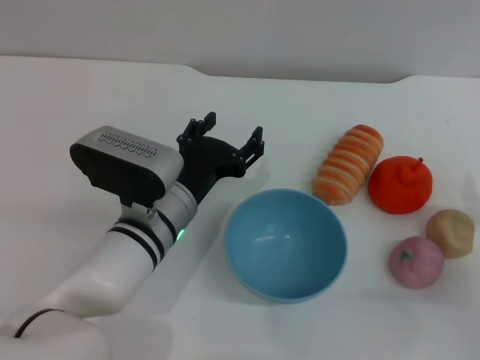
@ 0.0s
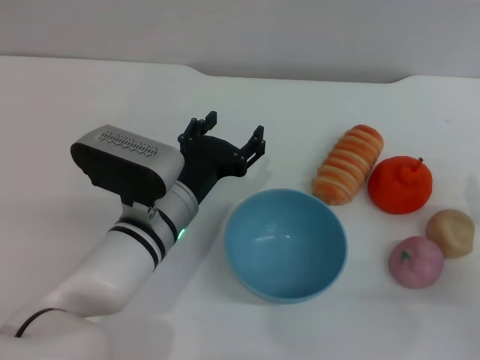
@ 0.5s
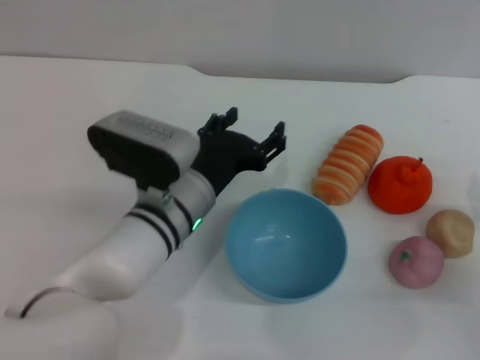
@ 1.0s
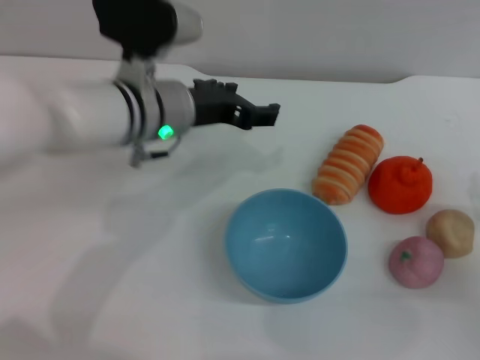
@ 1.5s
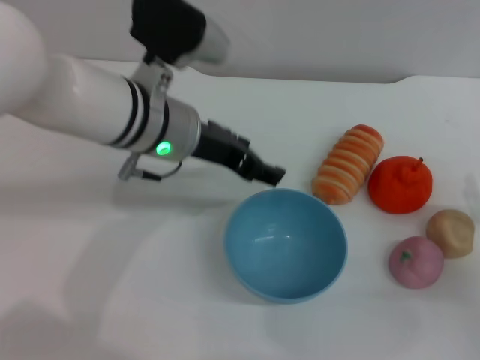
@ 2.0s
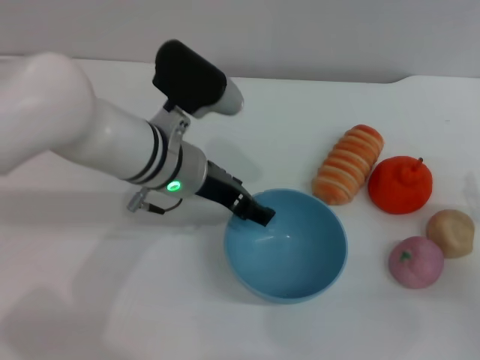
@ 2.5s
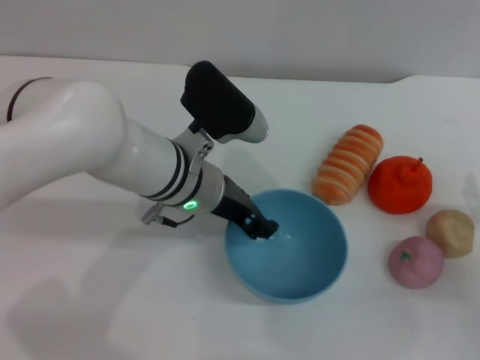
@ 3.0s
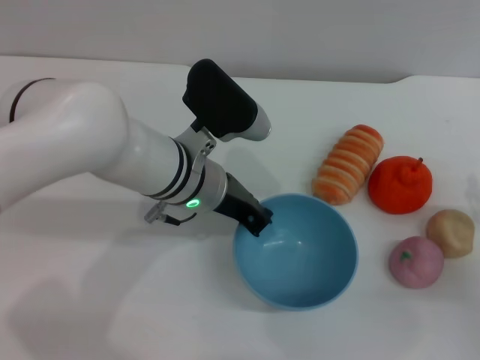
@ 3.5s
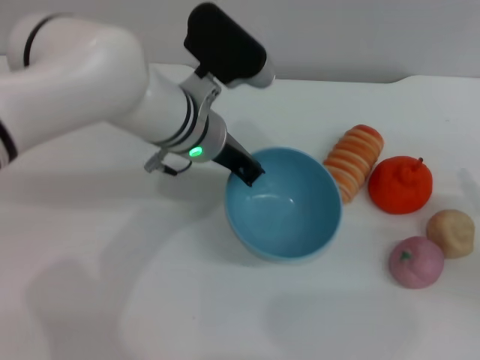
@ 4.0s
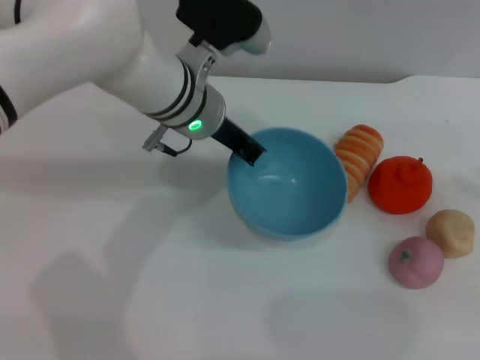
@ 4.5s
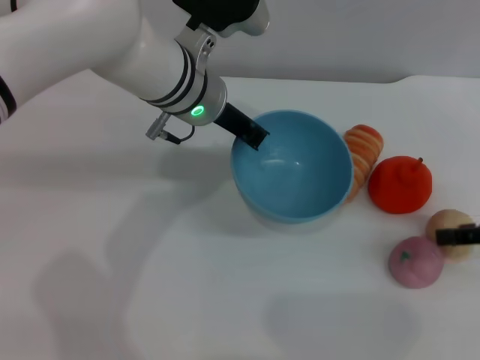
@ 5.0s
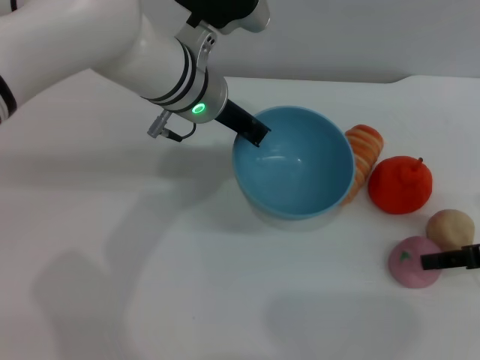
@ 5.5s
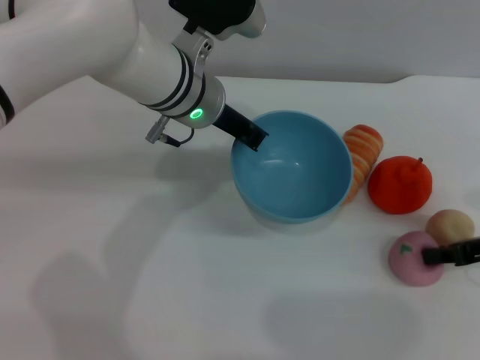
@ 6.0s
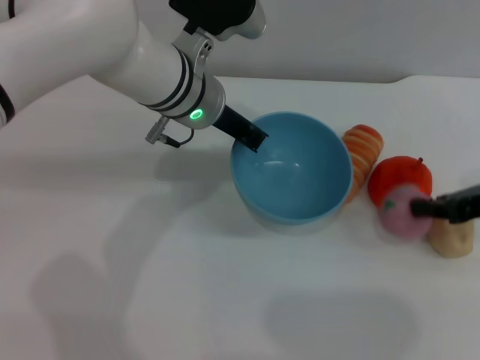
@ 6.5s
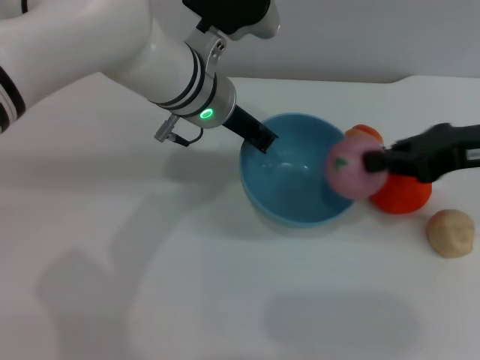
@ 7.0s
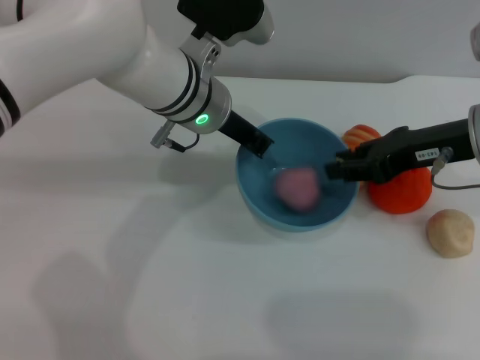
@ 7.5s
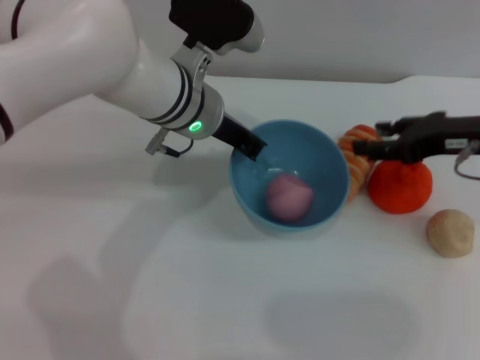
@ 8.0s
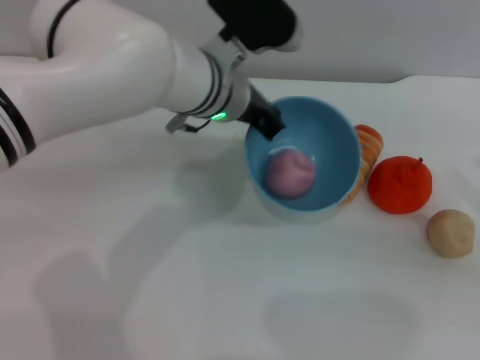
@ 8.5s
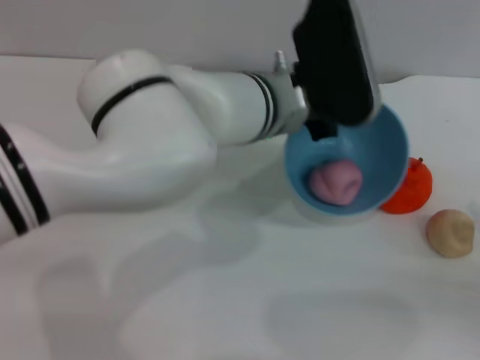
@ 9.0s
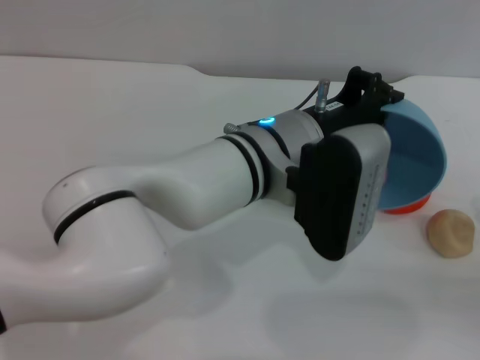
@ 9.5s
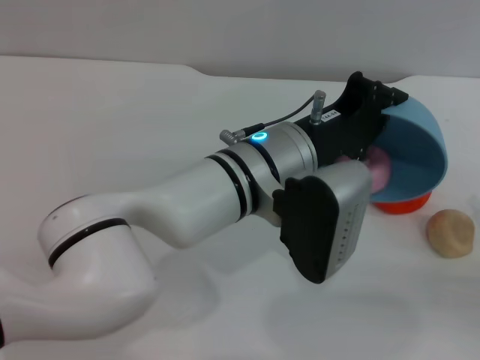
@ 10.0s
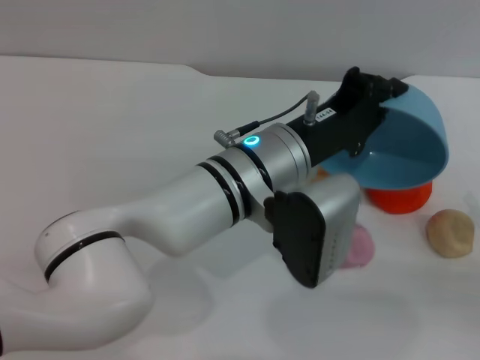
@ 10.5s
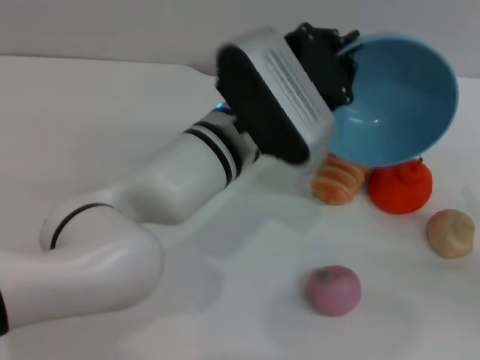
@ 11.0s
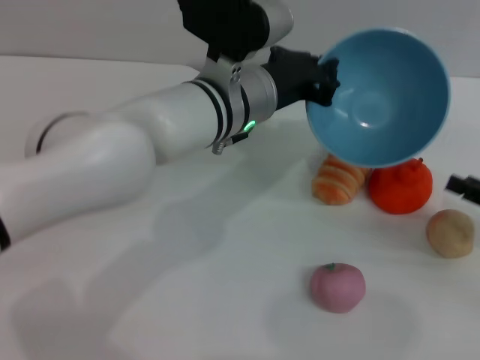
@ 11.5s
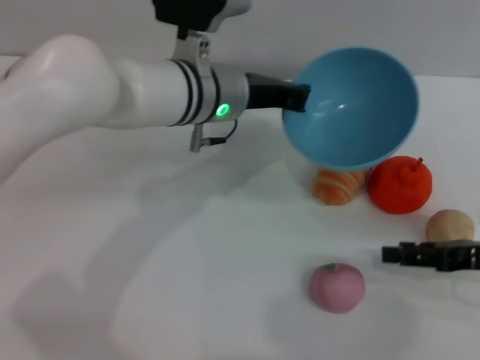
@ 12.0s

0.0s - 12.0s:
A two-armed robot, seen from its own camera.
Task of the whole recording: put the peach into the blue bowl and pour it out repeatedly.
Step, 0.0s - 5.0s: Pick up the bowl with the left gripper.
Step, 5.5s - 6.5s: Pick up the peach with the right gripper.
Step, 7.0s - 7.5s: Place the peach into the bowl.
Step, 8.0s - 10.5s: Pour the peach out of bowl.
0.0s - 2.0s: The left gripper travels upward and forward by approximately 15 cm.
2.0s - 4.0s: The left gripper closes.
4.0s - 6.0s: The right gripper travels upward by about 5 cm.
6.0s - 8.0s: The right gripper shifts some 10 cm upward and to the left, and opens its fingers.
8.0s - 10.0s: The left gripper travels backward and to the right by approximately 10 cm. Meanwhile the right gripper travels backward, downward and to the right by about 20 cm.
10.0s - 12.0s: The left gripper moves forward and to the left, about 10 cm; the right gripper goes approximately 10 cm to the left and forward.

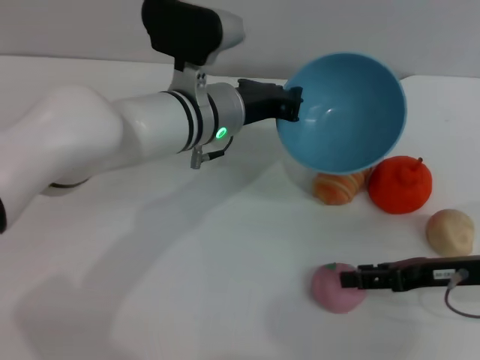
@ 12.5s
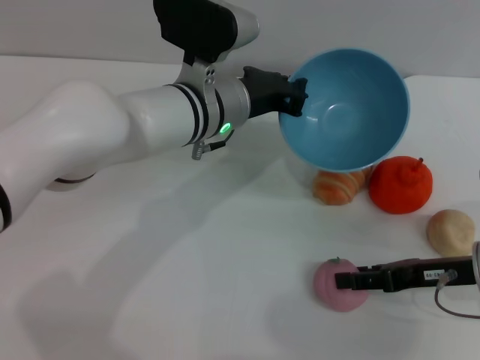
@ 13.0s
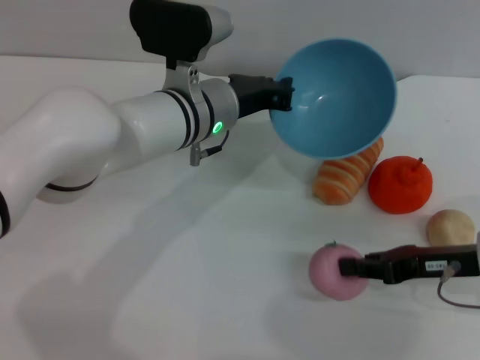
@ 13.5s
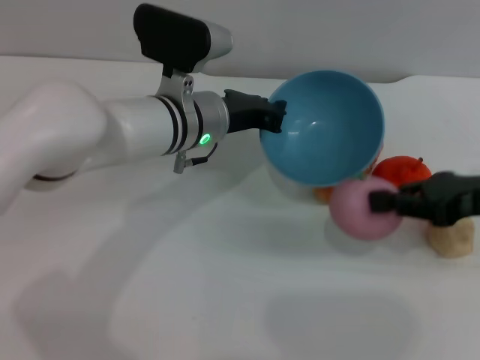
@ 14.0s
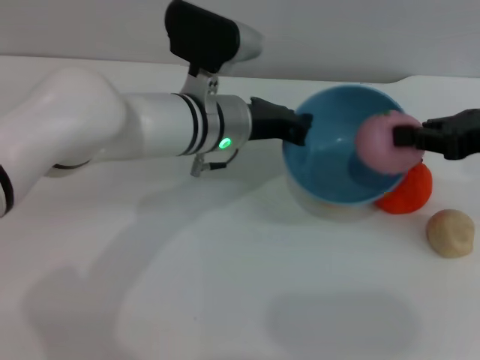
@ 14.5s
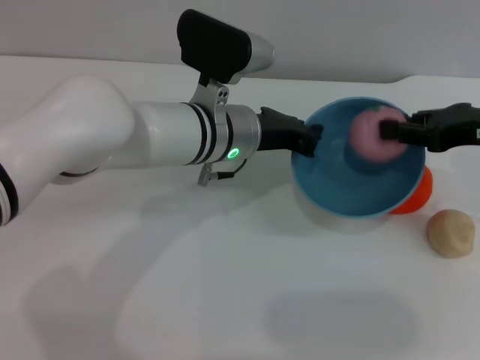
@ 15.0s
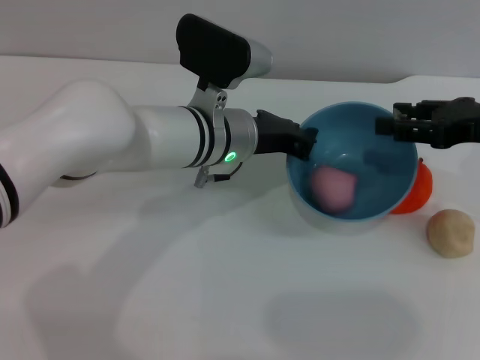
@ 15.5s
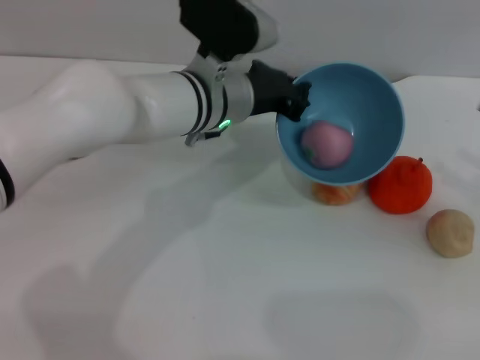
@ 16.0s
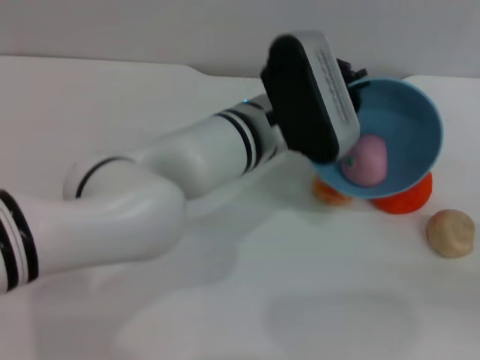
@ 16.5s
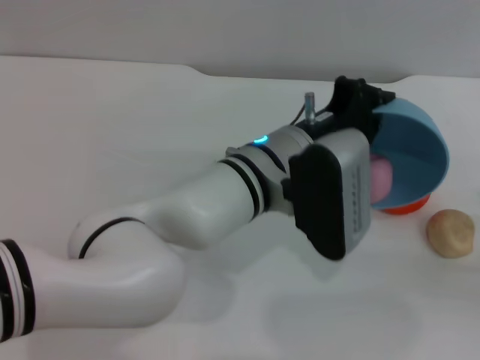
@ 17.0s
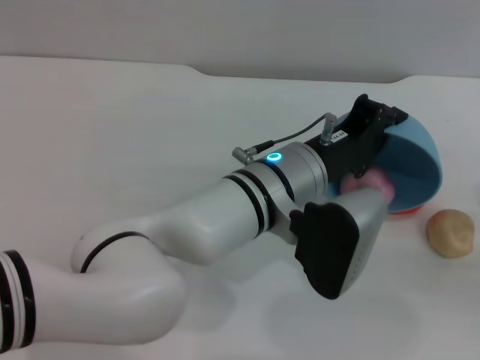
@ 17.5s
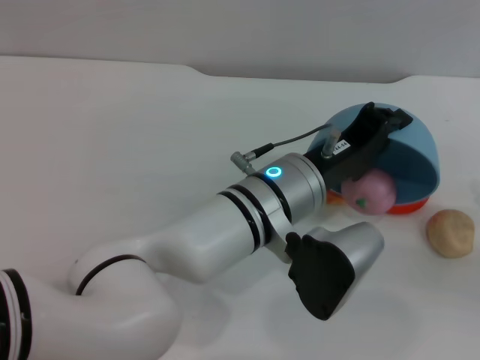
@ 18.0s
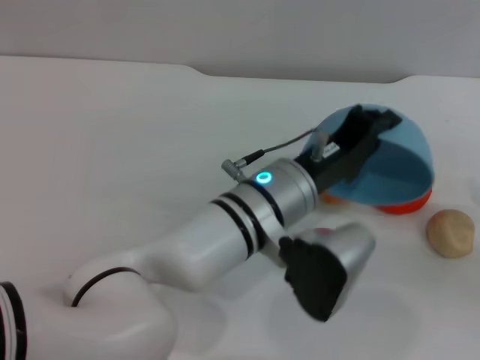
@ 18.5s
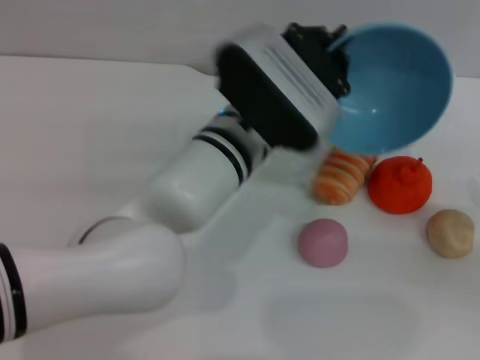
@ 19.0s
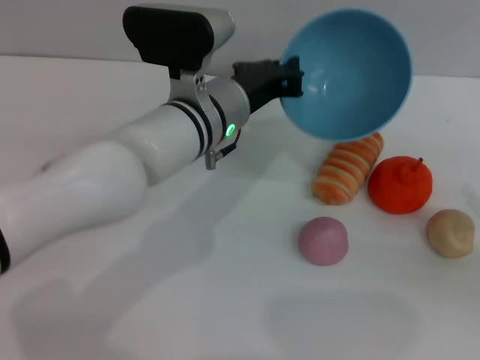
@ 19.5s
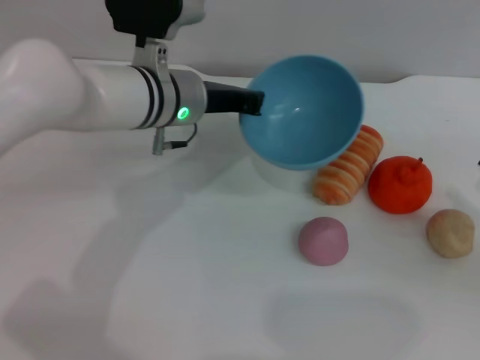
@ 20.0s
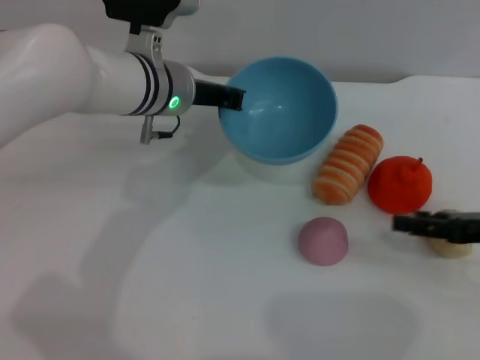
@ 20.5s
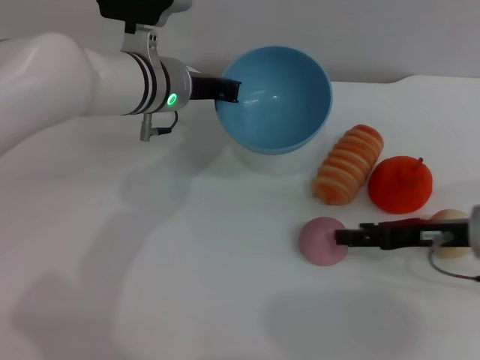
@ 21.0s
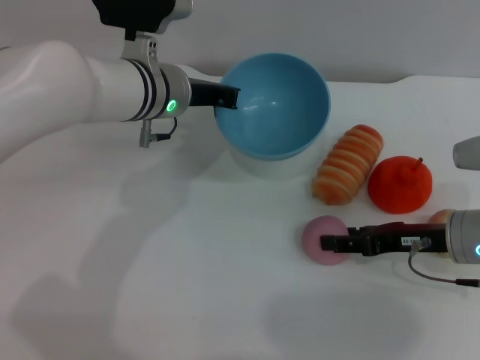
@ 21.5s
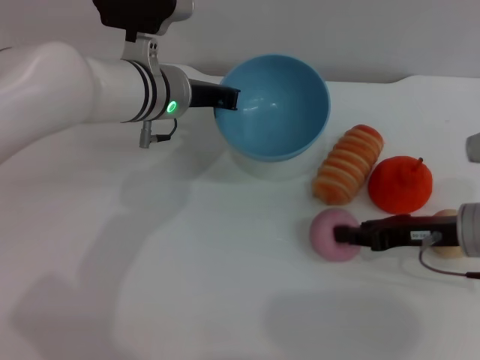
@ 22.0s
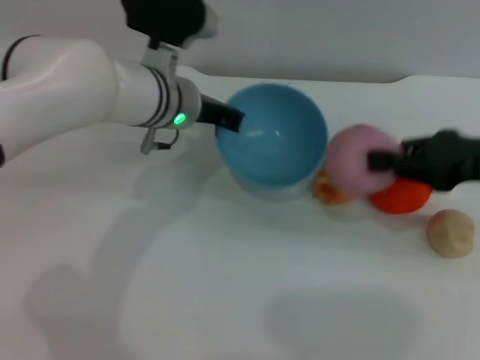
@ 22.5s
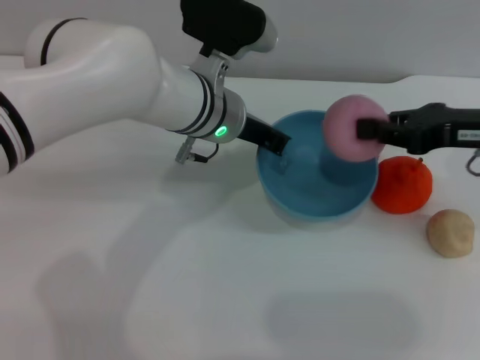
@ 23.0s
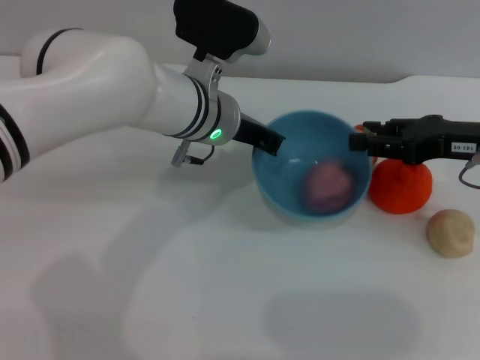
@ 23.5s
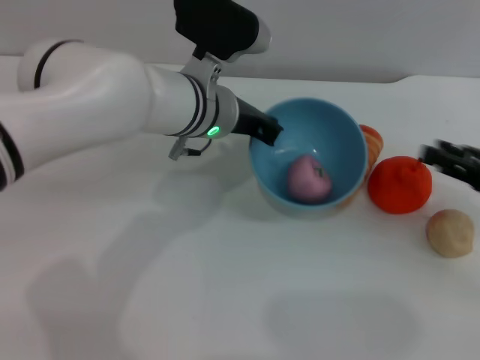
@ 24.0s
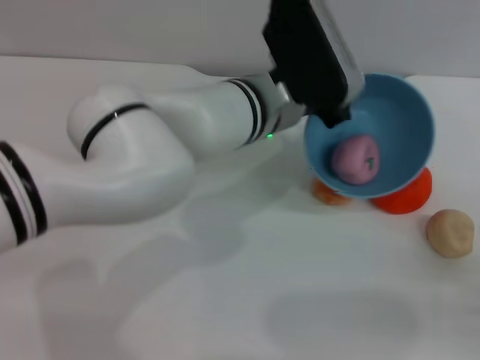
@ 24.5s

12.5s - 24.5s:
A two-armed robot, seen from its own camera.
Task of the whole recording: put the peach into the blue bowl and pour it out repeatedly.
Step, 14.0s - 15.0s: Place the peach into the bowl.
Step, 15.5s - 18.5s: Pour the peach out of bowl.
Step, 19.0s - 22.0s: Pick up the peach with the right gripper.
Step, 23.0s - 24.0s: Place the peach into the bowl.
12.5s - 14.5s: The right gripper shifts roughly 15 cm upward and forward, and closes its fingers.
14.5s - 16.5s: The left gripper shifts by roughly 5 cm, while the right gripper travels downward, backward and to the right by some 20 cm, and opens.
16.5s - 18.5s: The left gripper shifts approximately 5 cm backward.
18.5s - 20.5s: The left gripper goes about 15 cm forward and to the left. The right gripper heads to the left, covering about 5 cm.
20.5s - 22.5s: The right gripper heads upward, covering some 10 cm, and closes its fingers.
22.5s - 24.5s: The right gripper shifts roughly 20 cm backward, downward and to the right, and opens up; the left gripper heads to the right, covering approximately 10 cm.

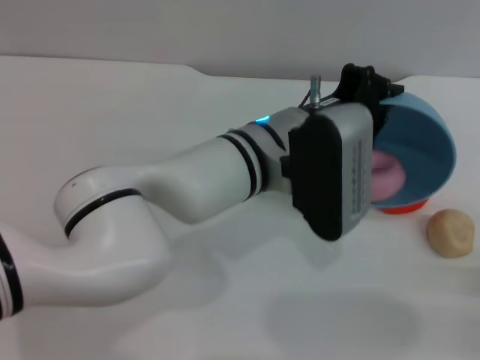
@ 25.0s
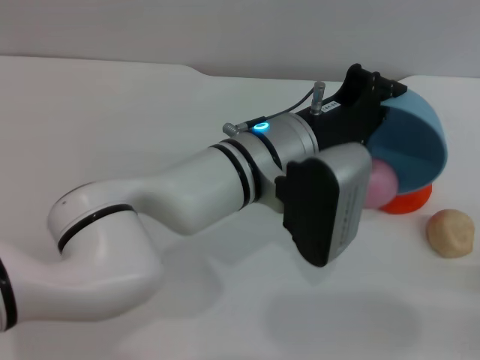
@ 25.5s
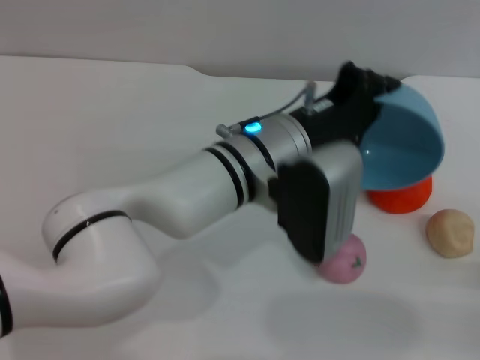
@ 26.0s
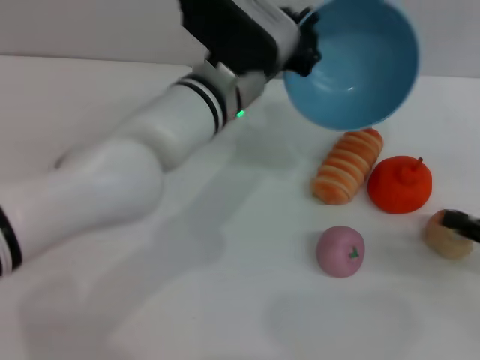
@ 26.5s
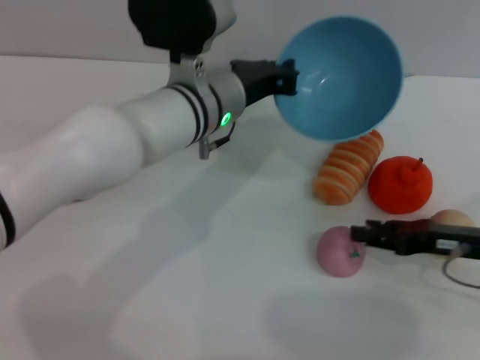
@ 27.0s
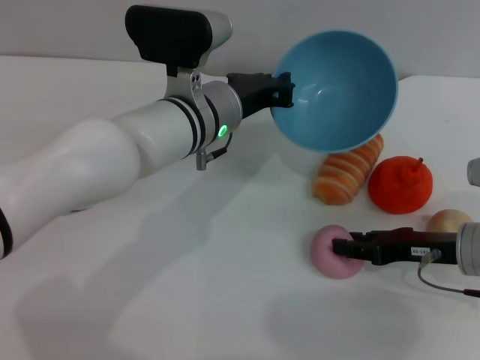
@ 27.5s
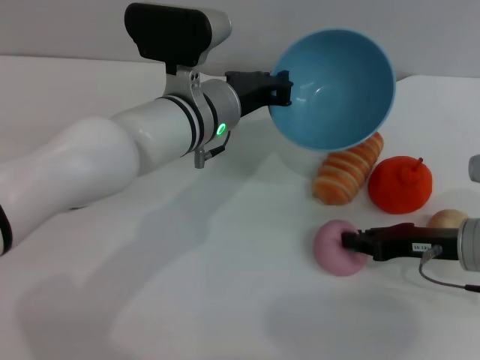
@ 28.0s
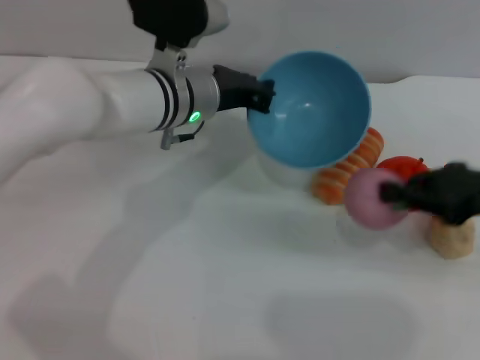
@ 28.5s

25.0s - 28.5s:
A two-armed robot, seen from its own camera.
Task of the whole recording: put the peach into the blue bowl and pour it out repeatedly.
Step, 25.0s - 26.0s: Pour the peach out of bowl.
Step, 26.5s - 28.5s: Pick up the peach with the right gripper.
25.0s - 27.0s: The right gripper shifts roughly 20 cm forward and to the left. Meanwhile the left gripper goes approximately 10 cm forward and to the left.
27.0s - 28.5s: The right gripper travels upward by approximately 10 cm, and closes up.
